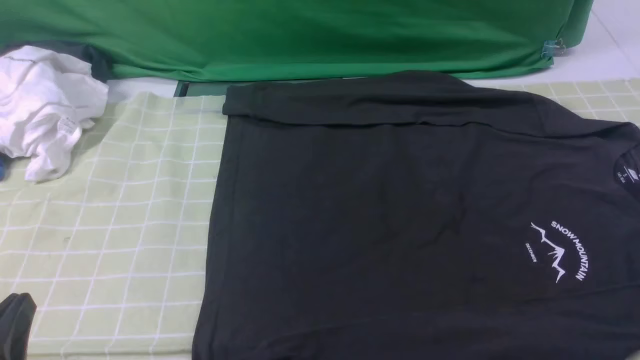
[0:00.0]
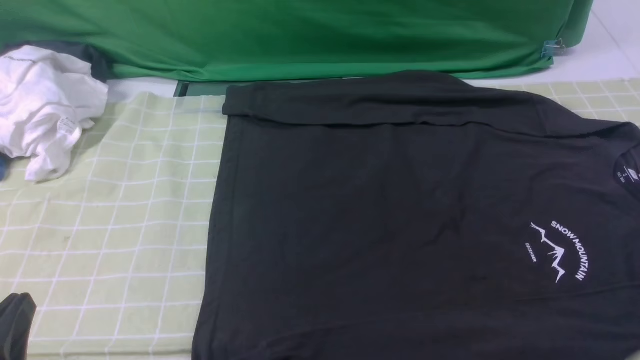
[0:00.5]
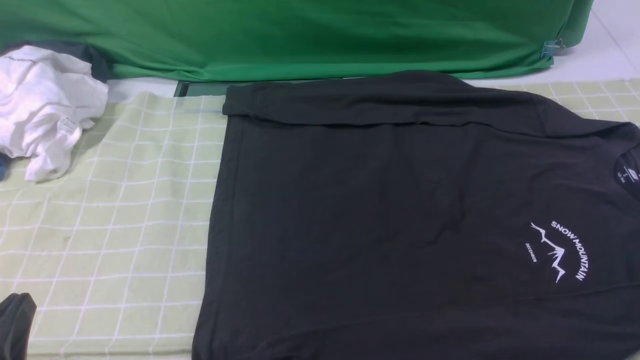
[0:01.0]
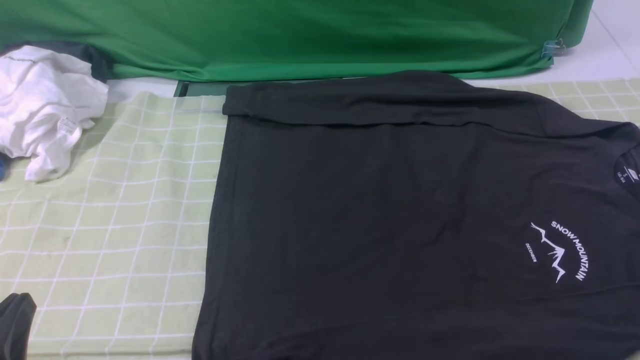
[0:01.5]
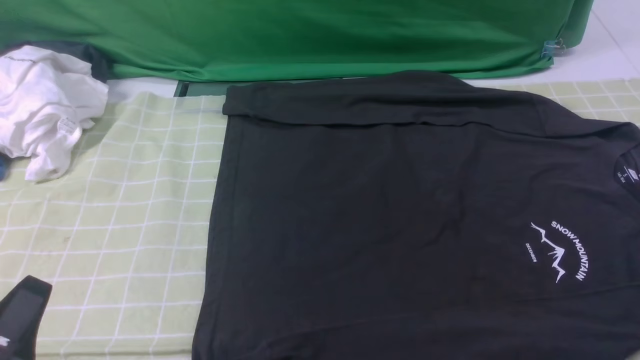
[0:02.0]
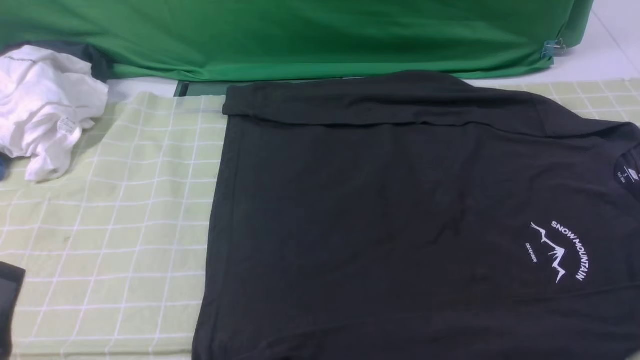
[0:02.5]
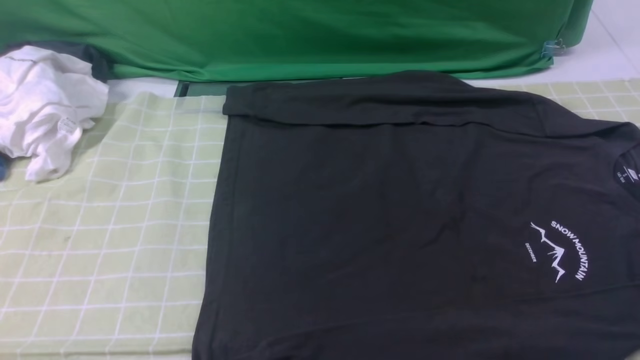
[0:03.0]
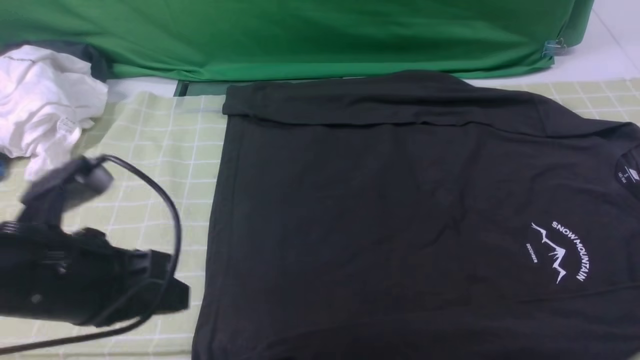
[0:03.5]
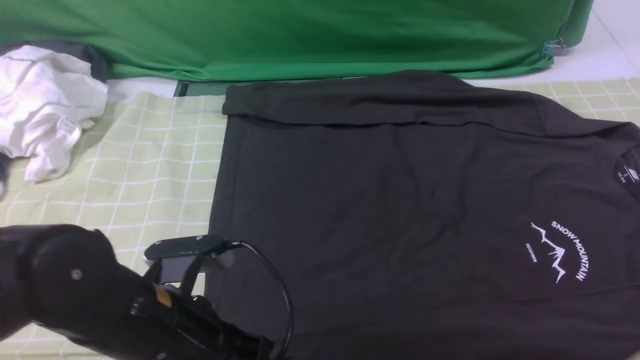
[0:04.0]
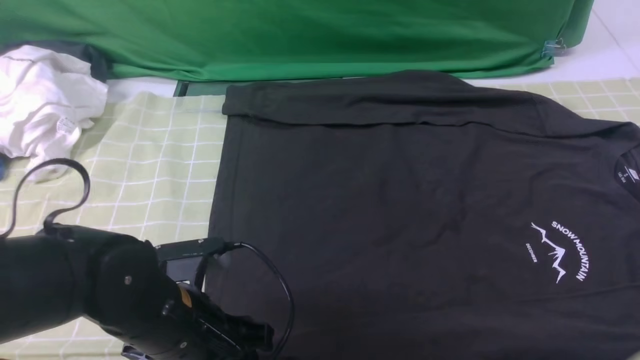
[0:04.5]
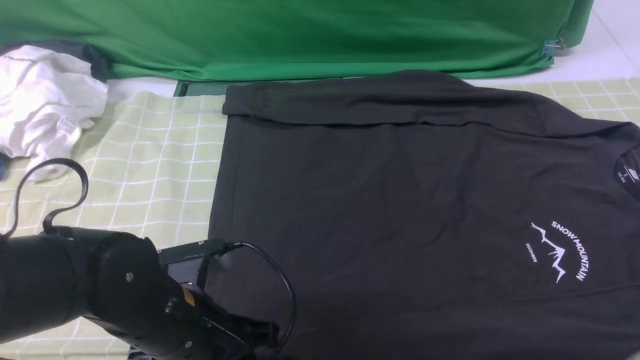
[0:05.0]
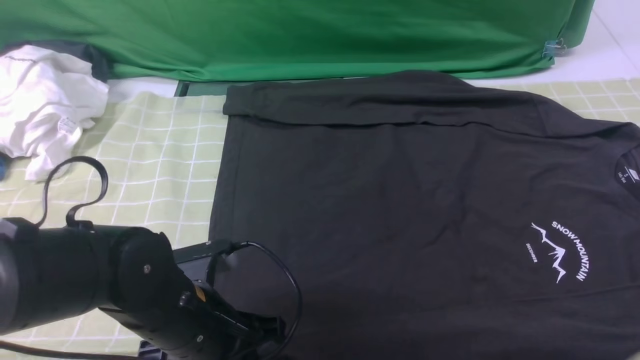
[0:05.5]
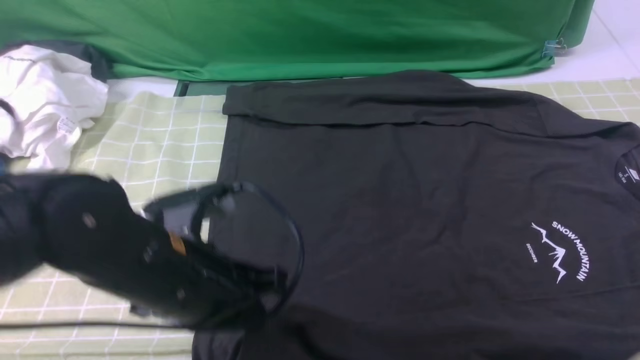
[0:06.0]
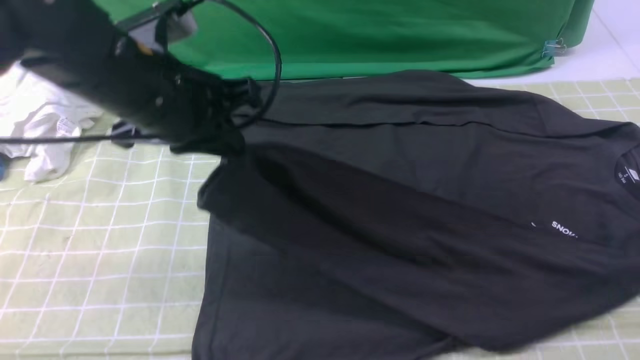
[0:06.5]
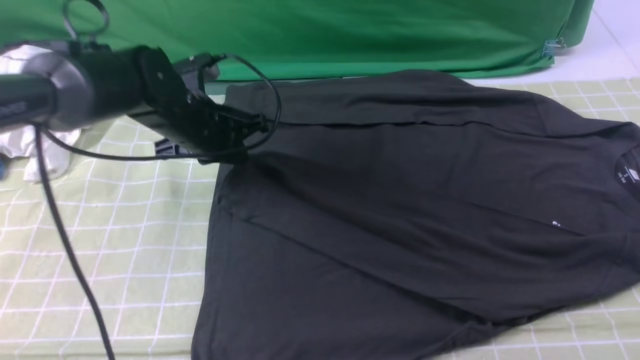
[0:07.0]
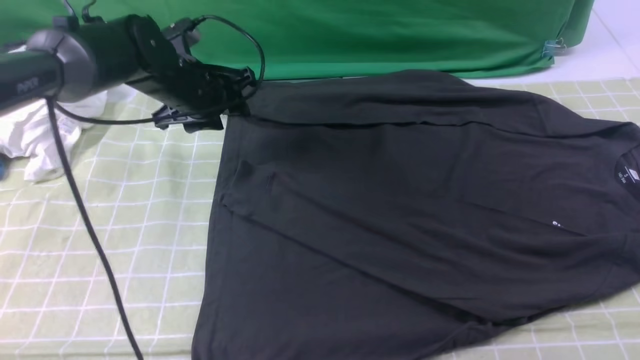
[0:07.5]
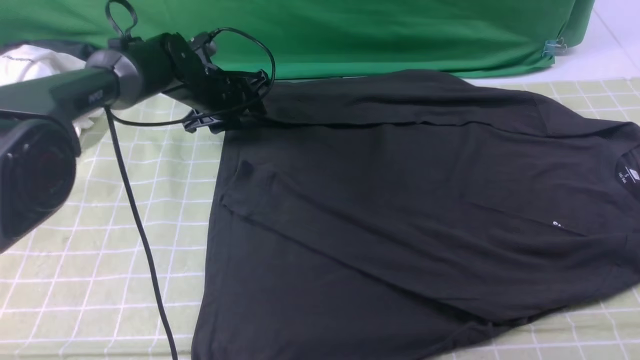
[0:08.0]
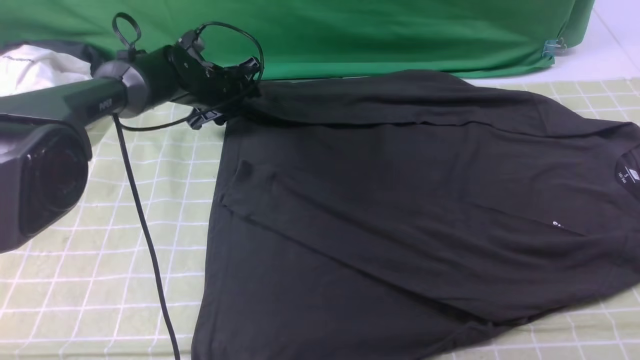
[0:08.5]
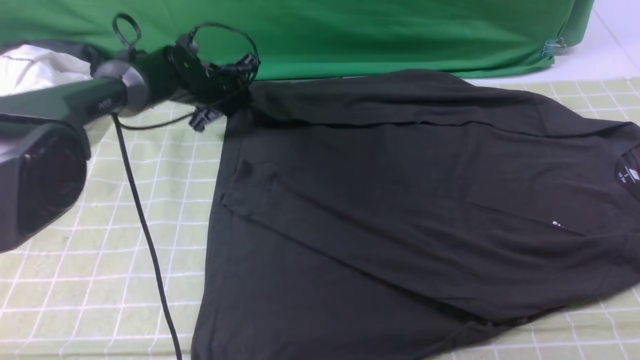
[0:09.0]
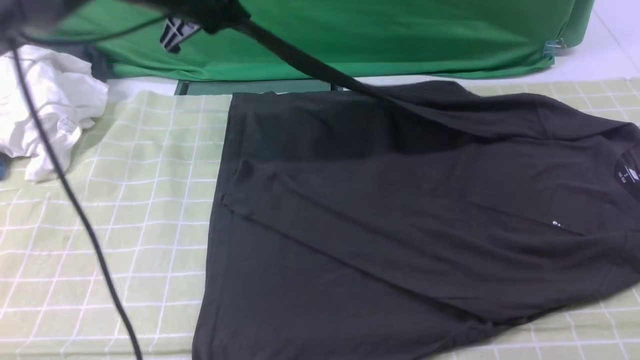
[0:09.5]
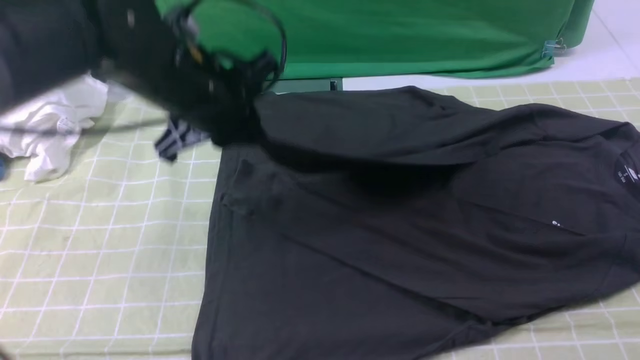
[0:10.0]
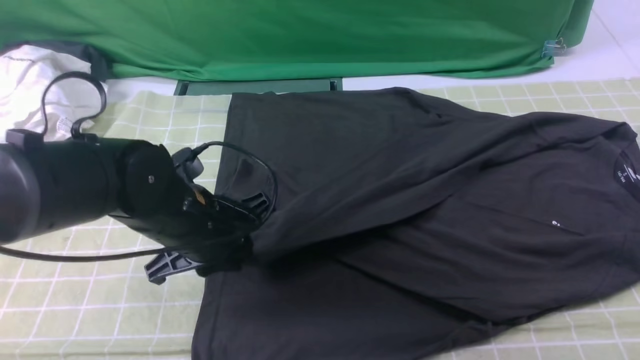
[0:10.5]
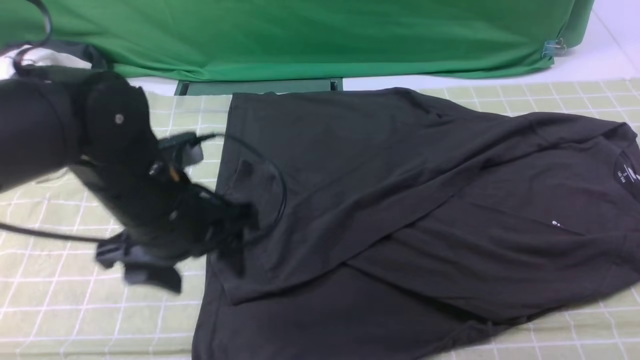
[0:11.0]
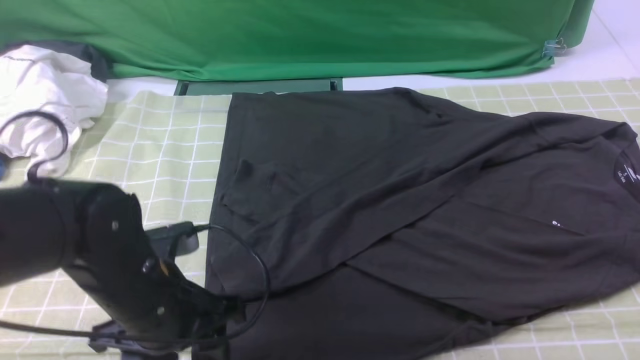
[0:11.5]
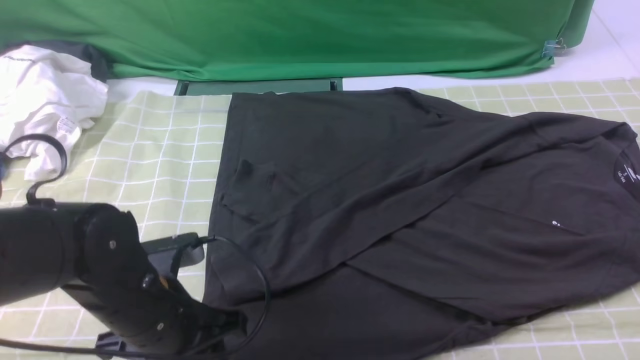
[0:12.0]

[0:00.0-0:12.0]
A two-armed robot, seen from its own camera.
Step, 0:00.0 to 0:05.0: use the left arm to clamp the cuff closest to it.
Step, 0:05.5 to 0:07.0: use the left arm to drag and place the cuff at the centered position on the left edge of the fabric.
Step, 0:07.5 to 0:08.5: use the left arm to clamp the cuff farthest from it.
Step, 0:09.0 to 0:10.5: use the left arm to drag and drop the cuff onto the cuff closest to the left arm.
0:02.0 to 0:04.0: The right gripper goes roughly 20 cm forward and upward, and closes its fingers. Meanwhile the left gripper shifts about 15 cm forward and to the right.
0:04.0 to 0:06.0: The left gripper moves some 5 cm, and opens, then closes again.
0:06.0 to 0:08.0: The left gripper shifts about 30 cm forward, and opens its fingers.
0:08.0 to 0:10.0: The right gripper closes. The left gripper shifts about 20 cm backward and upward, and closes up.
0:10.0 to 0:12.0: The left gripper is displaced backward and downward by roughly 20 cm, and opens up.

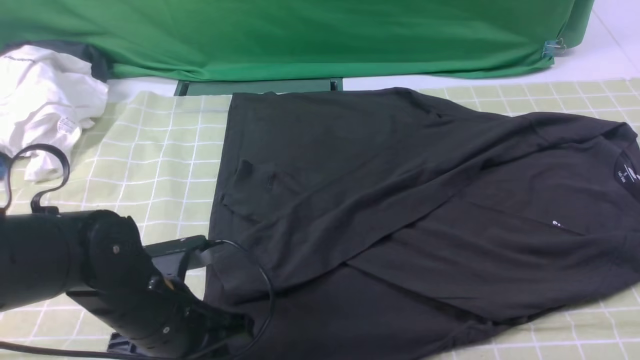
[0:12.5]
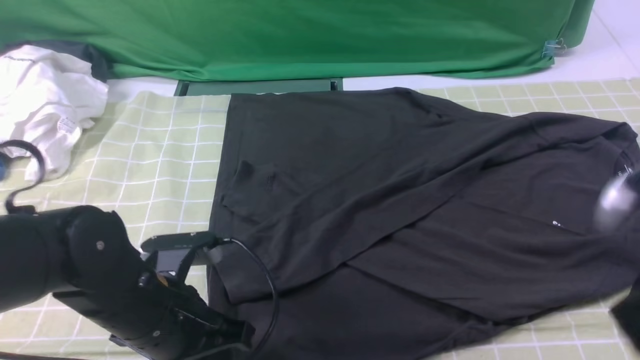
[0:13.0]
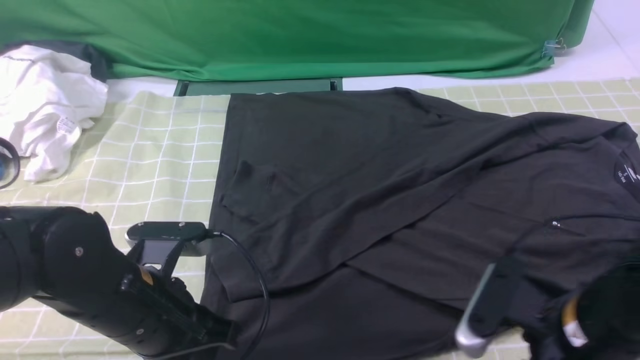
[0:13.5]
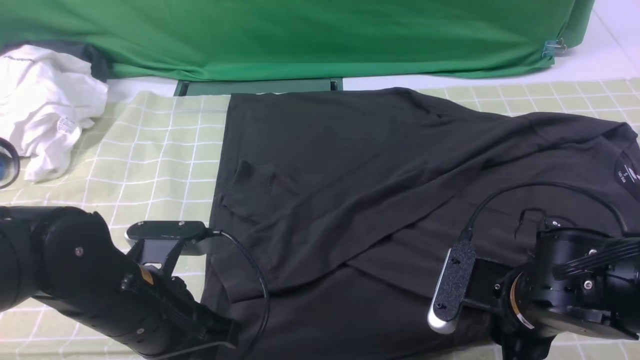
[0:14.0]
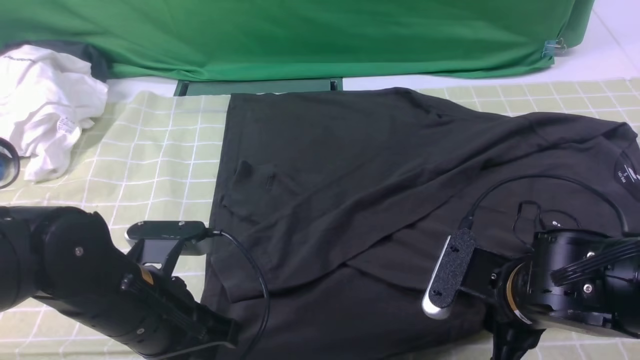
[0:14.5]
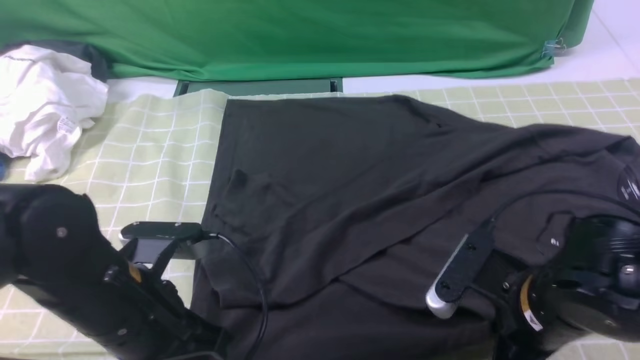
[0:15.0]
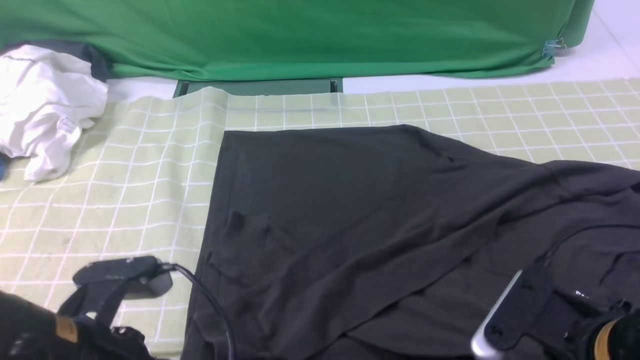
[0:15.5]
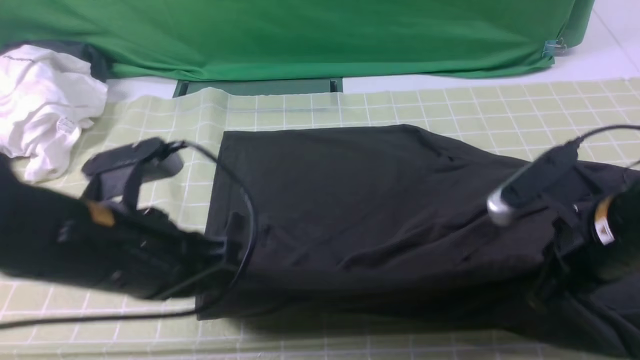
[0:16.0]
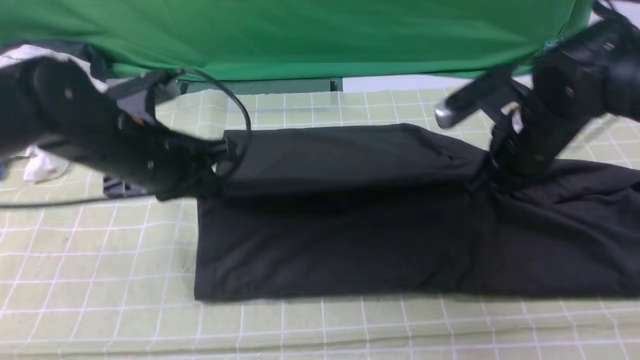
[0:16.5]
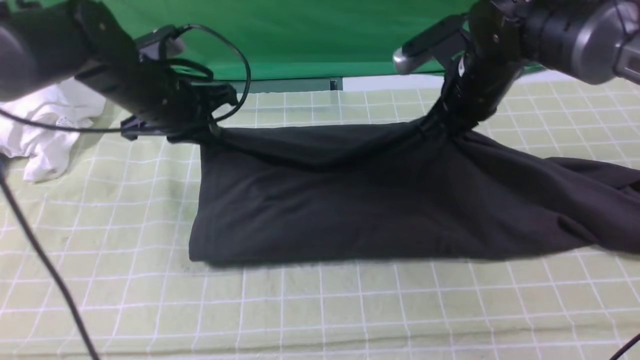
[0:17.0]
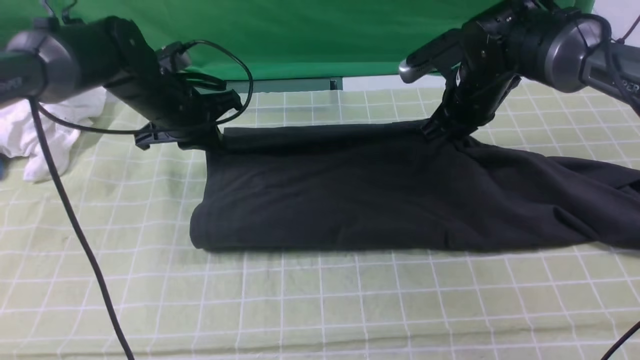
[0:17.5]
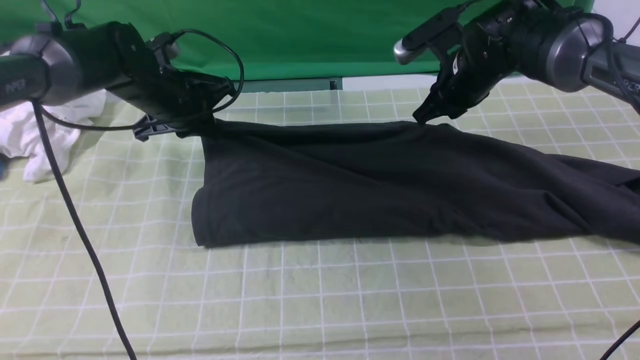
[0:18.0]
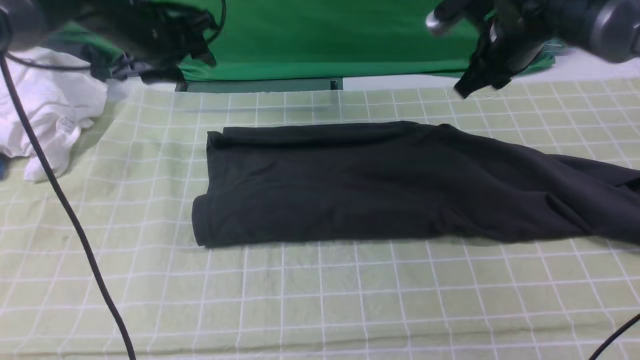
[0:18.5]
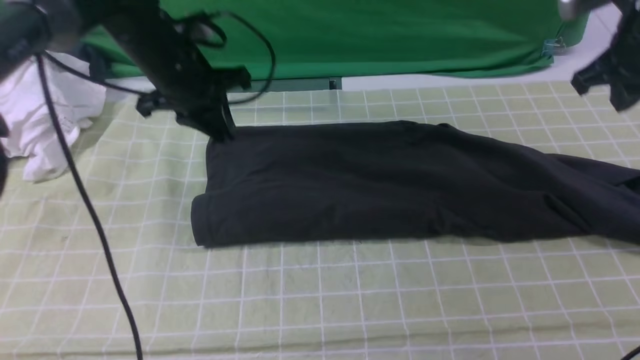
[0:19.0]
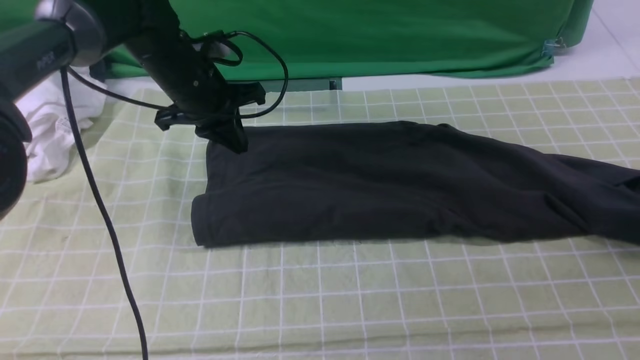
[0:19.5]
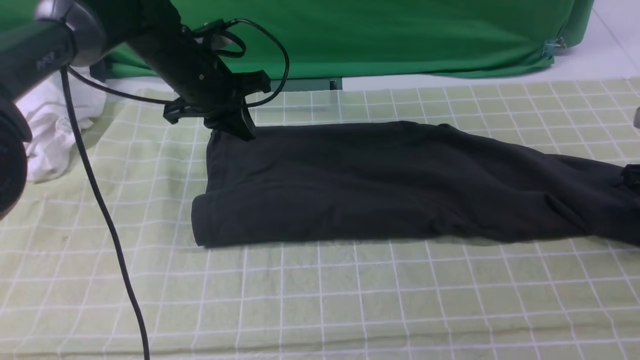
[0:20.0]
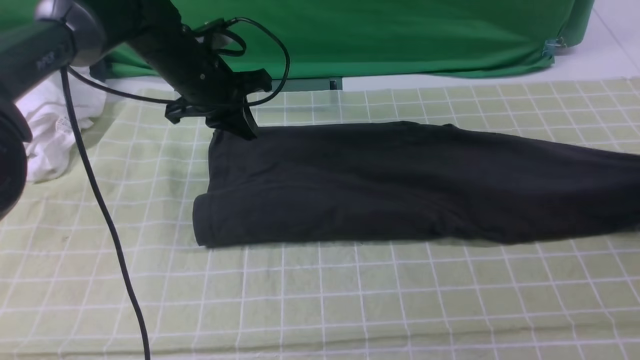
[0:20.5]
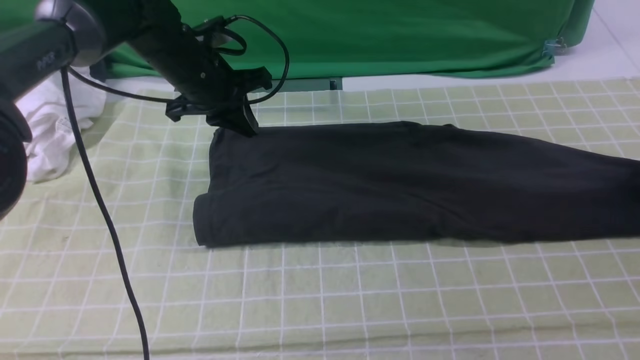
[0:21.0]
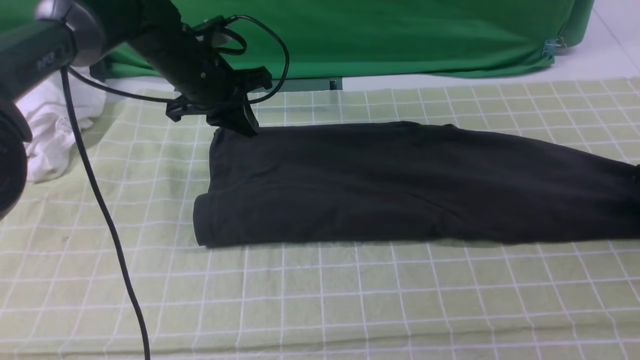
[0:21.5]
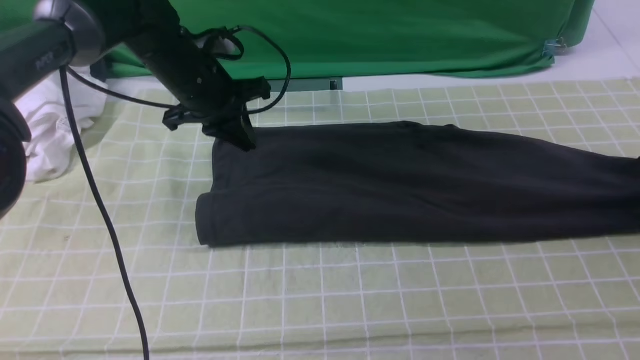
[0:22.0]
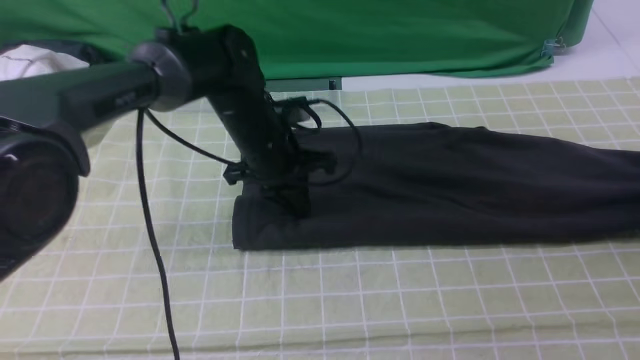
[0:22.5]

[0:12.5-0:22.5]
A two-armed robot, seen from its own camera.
Step, 0:12.5 to 0:14.5: use both arms simultaneously to clamp the lower edge of the clothing fabric.
Step, 0:15.0 to 0:18.5: use both arms to drag the lower edge of the fabric forward and fold it over the upper edge.
Step, 0:19.0 to 0:21.5: use the right arm to clamp the right edge of the fabric.
0:12.5 to 0:14.5: The right gripper shifts approximately 20 cm downward and to the left, and opens its fingers.
0:14.5 to 0:16.5: Both grippers travel together forward and upward, roughly 15 cm. The right gripper closes up.
0:16.5 to 0:18.5: The left gripper moves forward, roughly 15 cm, and opens. The right gripper shifts about 10 cm forward.
0:18.5 to 0:20.5: The left gripper ends up some 5 cm from where it was, and closes up. Meanwhile the right gripper travels to the right by some 25 cm.
0:20.5 to 0:22.5: The left gripper shifts about 10 cm to the right and backward, while the right gripper opens, then closes again.
